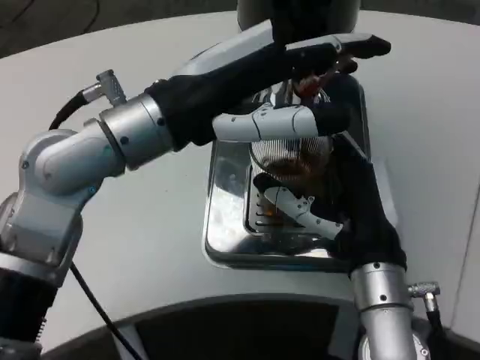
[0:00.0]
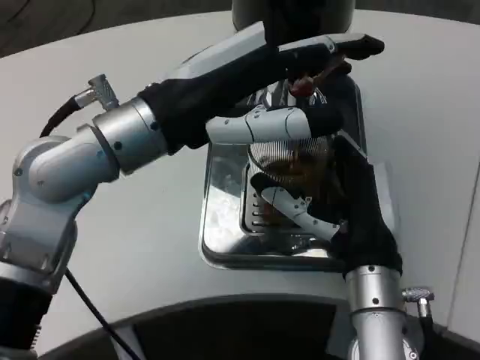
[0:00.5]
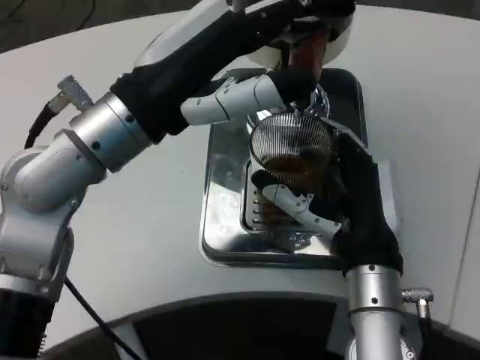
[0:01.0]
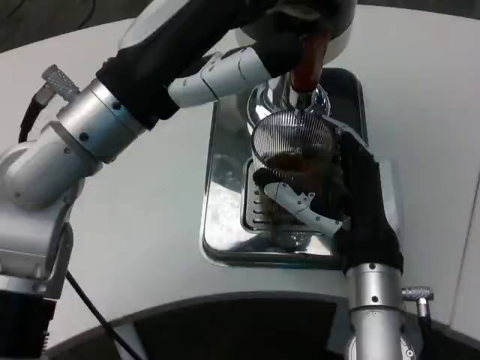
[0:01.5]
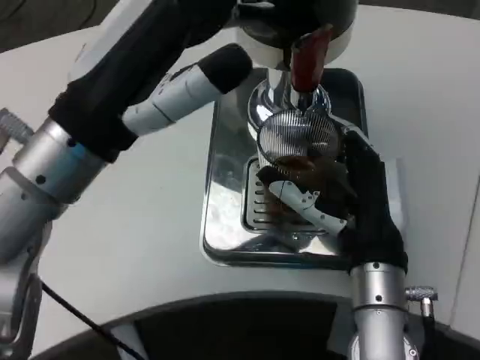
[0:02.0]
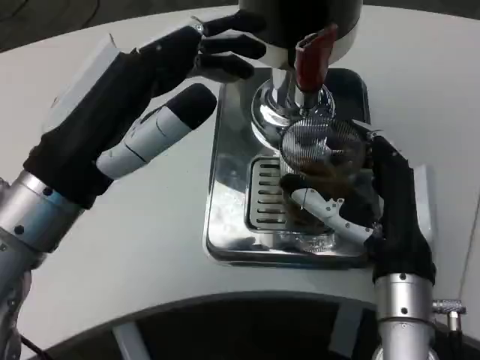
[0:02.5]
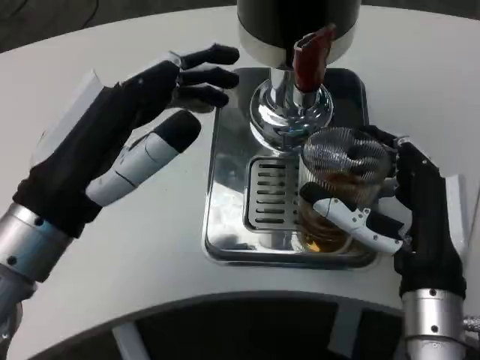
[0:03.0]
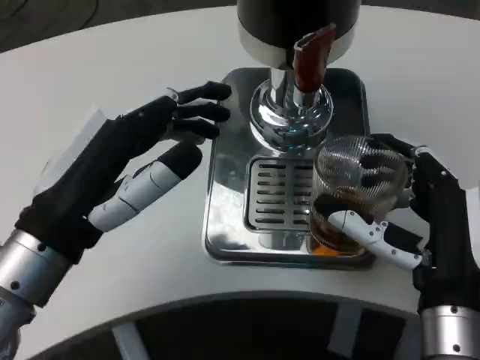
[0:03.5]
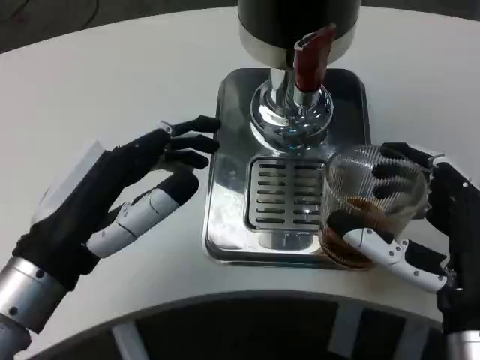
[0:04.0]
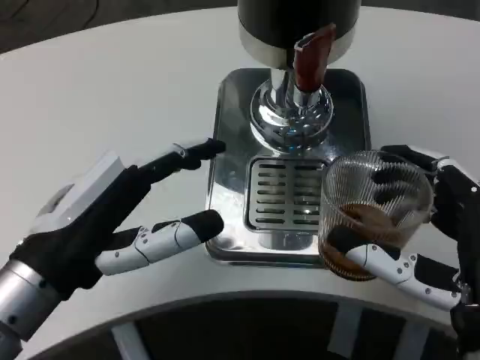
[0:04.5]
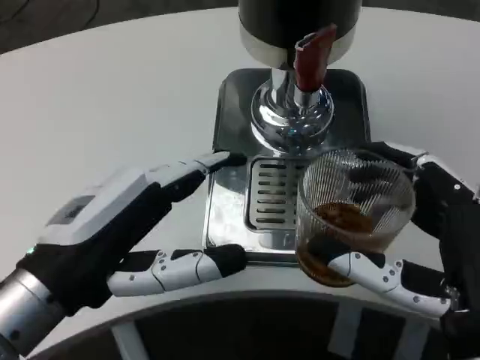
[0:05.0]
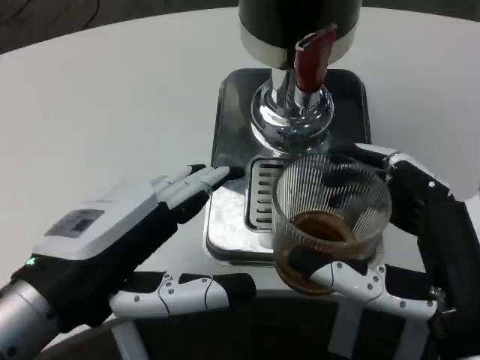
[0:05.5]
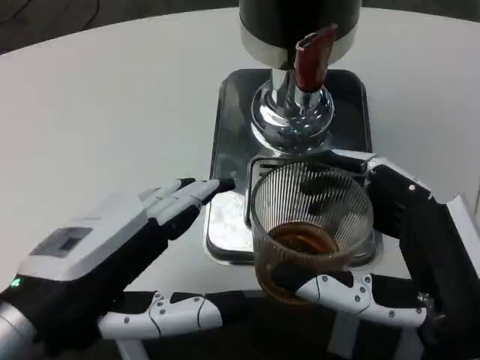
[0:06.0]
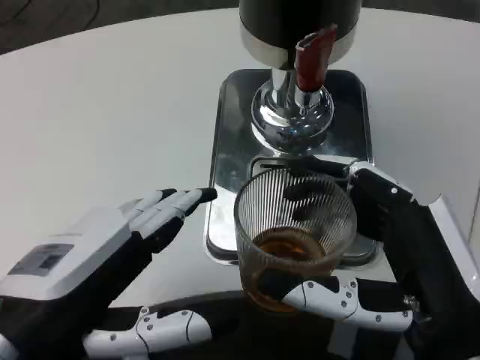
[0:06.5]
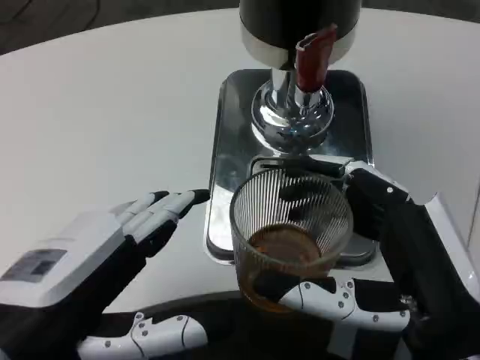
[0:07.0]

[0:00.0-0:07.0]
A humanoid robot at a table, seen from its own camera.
Task of the whole recording: Grasp the cup under the faucet to collect the drink, then remove the cup.
0:00.0 to 0:02.0: The left hand changes place by some 5 cm.
0:02.0 to 0:03.5: The left hand goes roughly 5 cm downward; the right hand moves approximately 5 cm.
0:03.5 to 0:05.0: The right hand goes approximately 5 cm backward.
0:05.0 to 0:07.0: The left hand heads backward, covering roughly 5 cm.

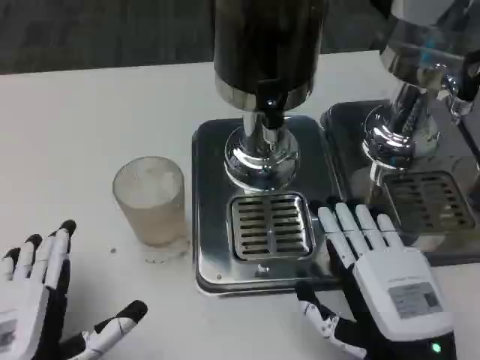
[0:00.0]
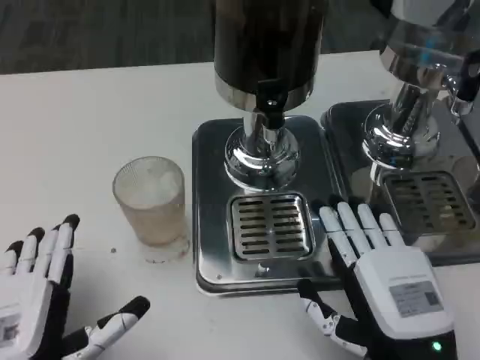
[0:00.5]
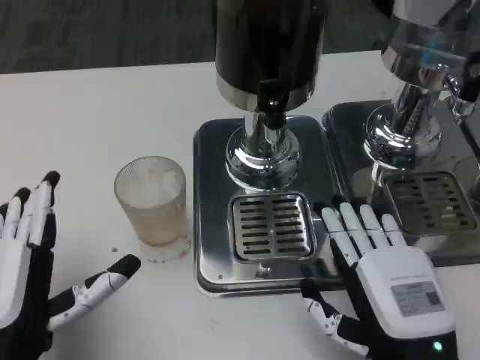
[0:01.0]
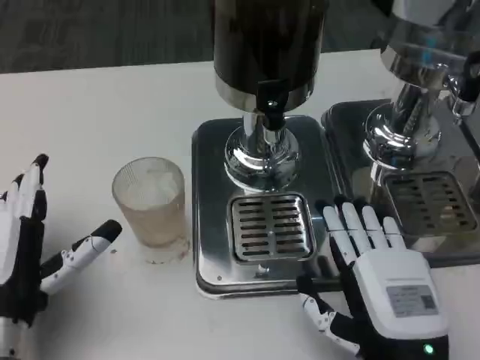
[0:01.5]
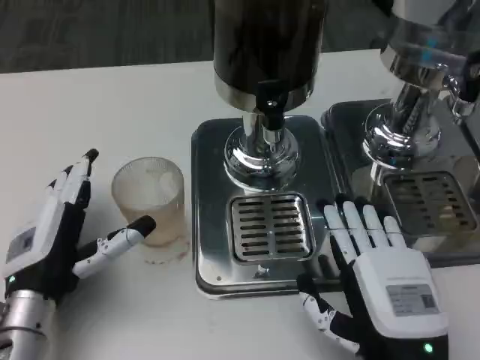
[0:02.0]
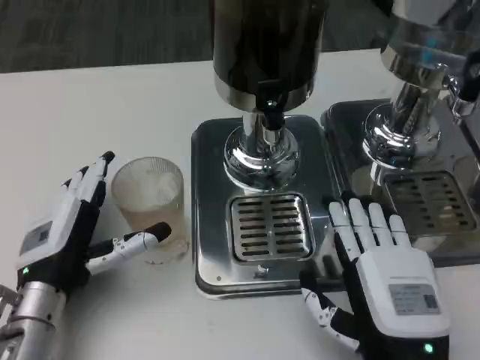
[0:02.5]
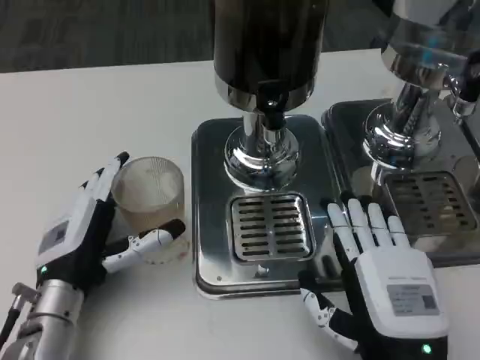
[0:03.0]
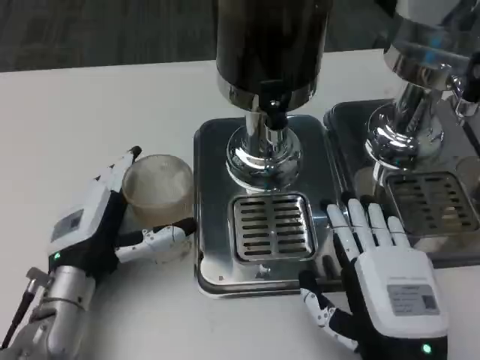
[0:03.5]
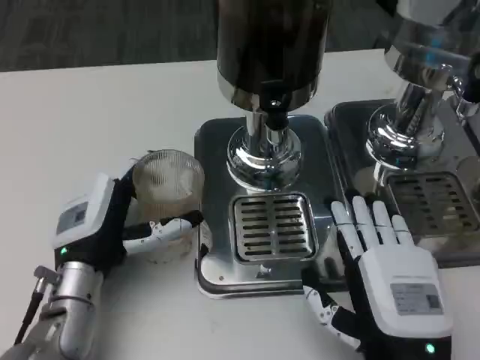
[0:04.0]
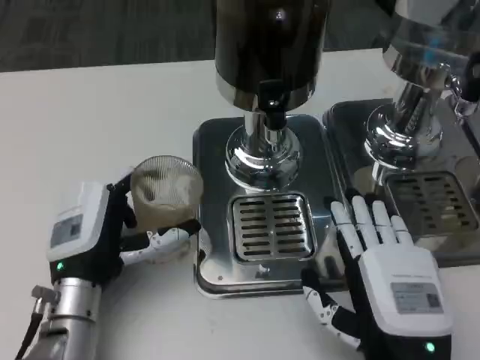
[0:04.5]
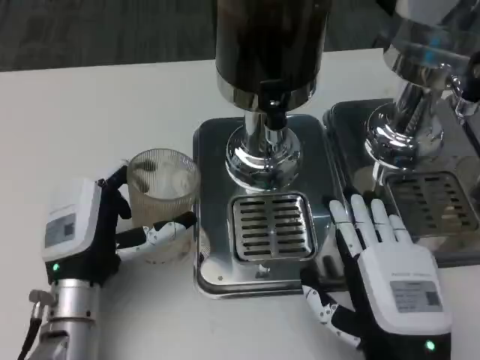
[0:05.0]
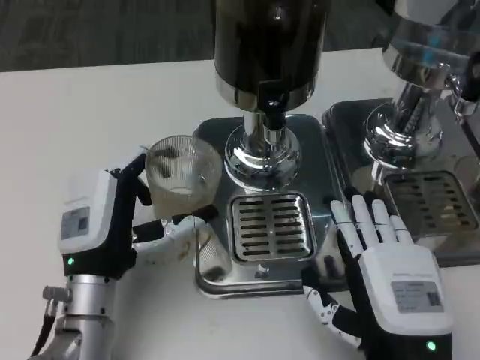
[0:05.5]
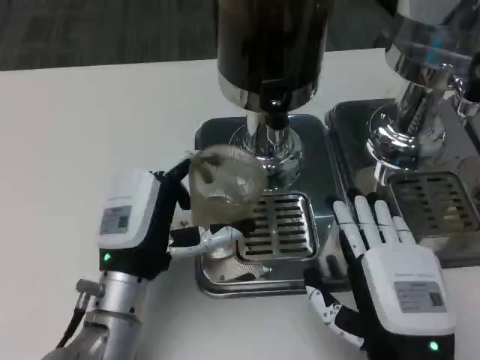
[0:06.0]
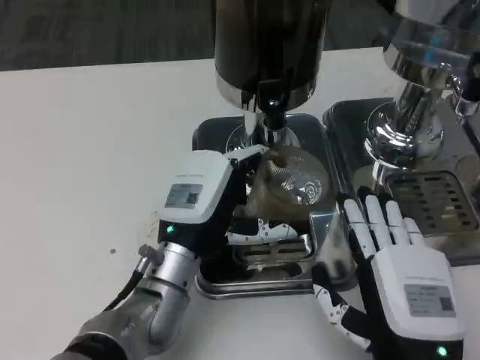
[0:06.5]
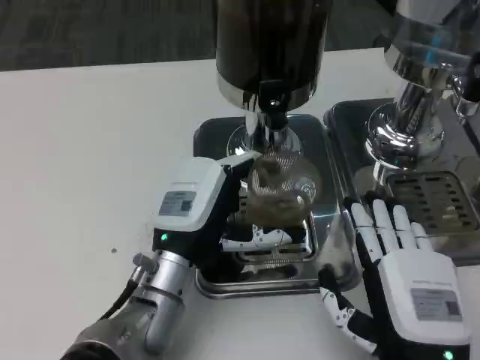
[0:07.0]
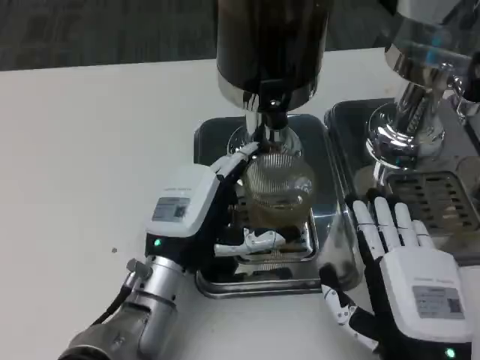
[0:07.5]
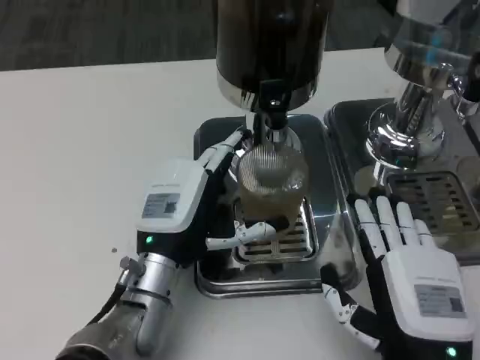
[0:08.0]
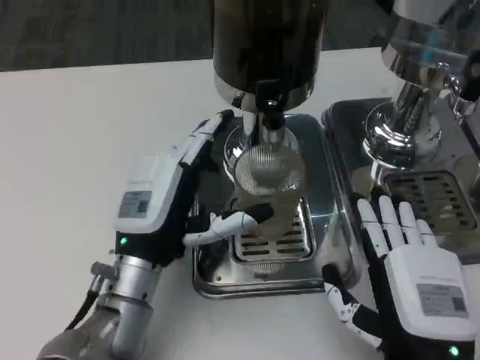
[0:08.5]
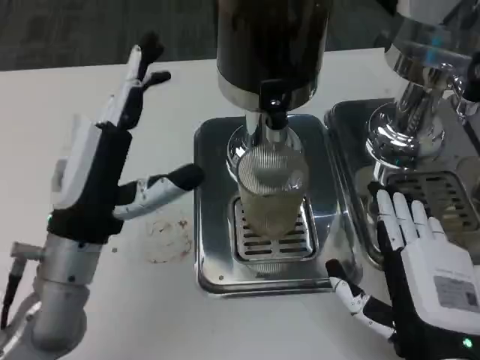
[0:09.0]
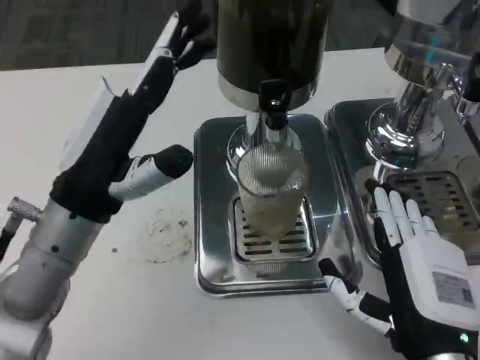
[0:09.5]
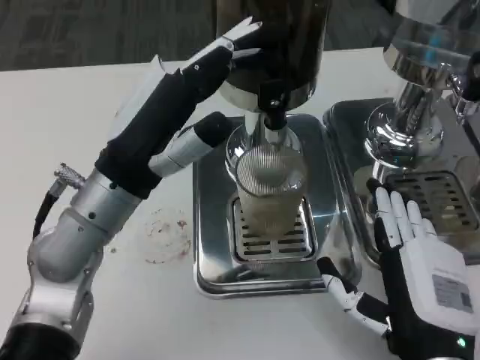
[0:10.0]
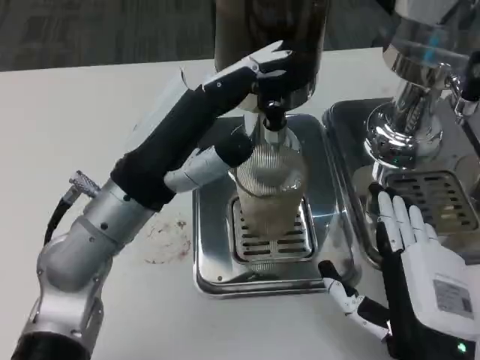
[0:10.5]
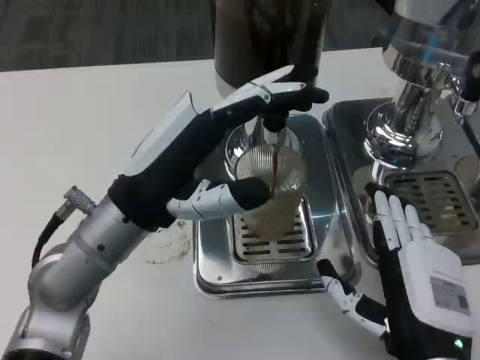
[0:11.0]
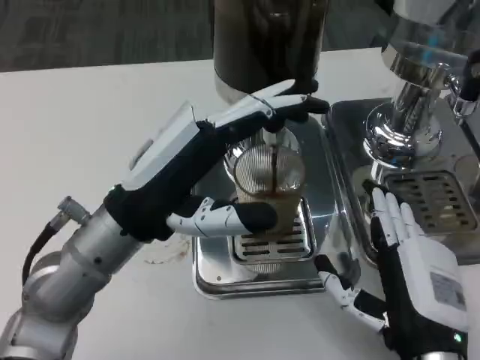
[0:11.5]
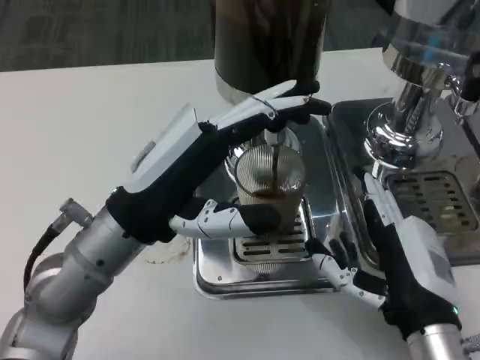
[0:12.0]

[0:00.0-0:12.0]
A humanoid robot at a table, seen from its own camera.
Task of the whole recording: Grasp the cup under the faucet to collect the drink, then remove the cup.
0:00.0 to 0:02.0: The left hand shifts some 10 cm forward.
0:02.0 to 0:04.0: The left hand changes place by about 5 cm.
0:08.0 to 0:10.0: The left hand shifts roughly 10 cm upward.

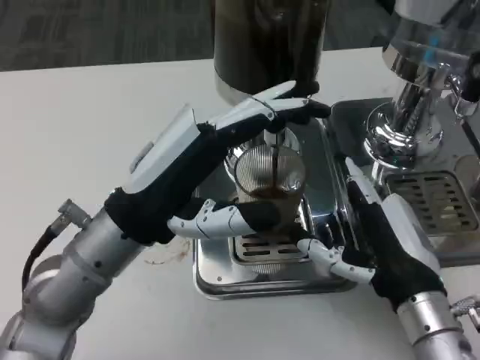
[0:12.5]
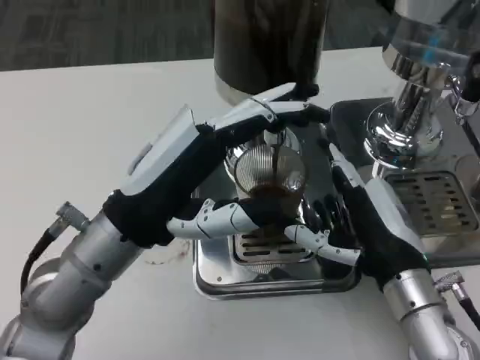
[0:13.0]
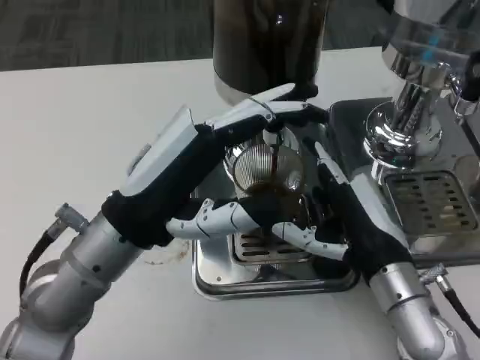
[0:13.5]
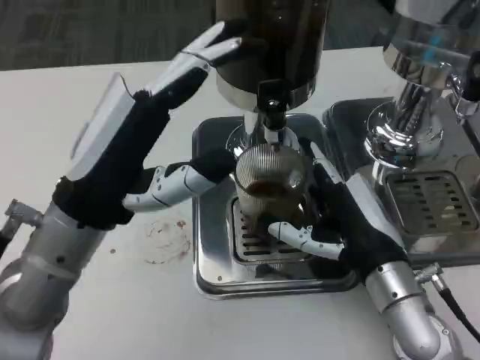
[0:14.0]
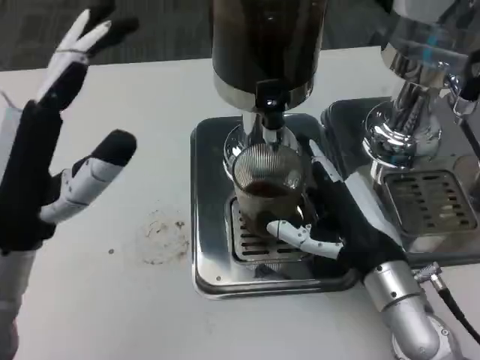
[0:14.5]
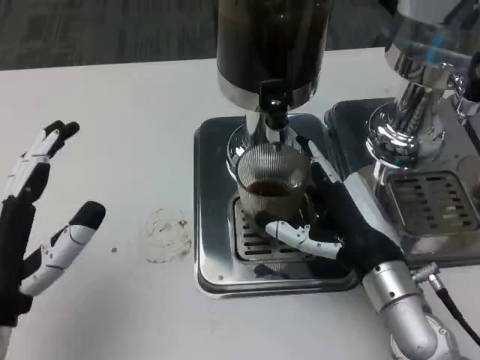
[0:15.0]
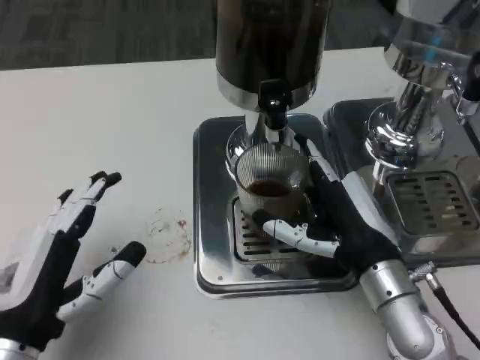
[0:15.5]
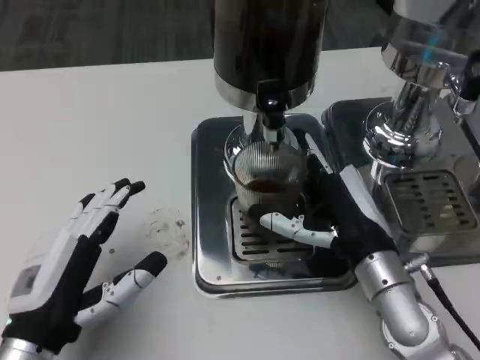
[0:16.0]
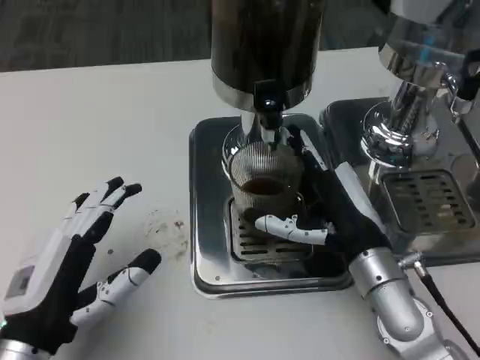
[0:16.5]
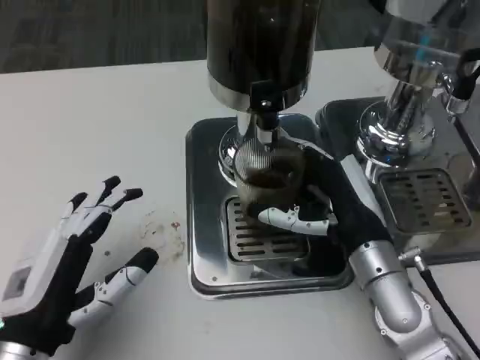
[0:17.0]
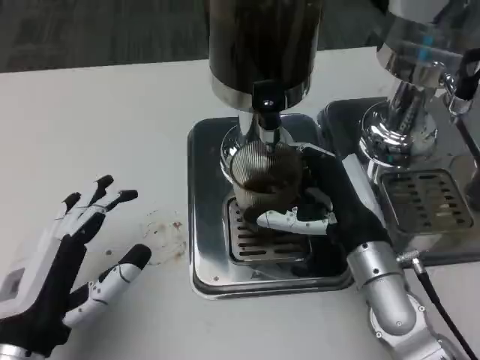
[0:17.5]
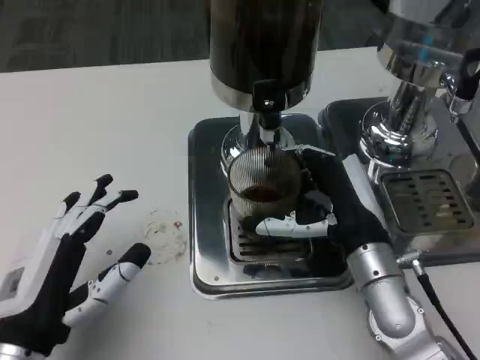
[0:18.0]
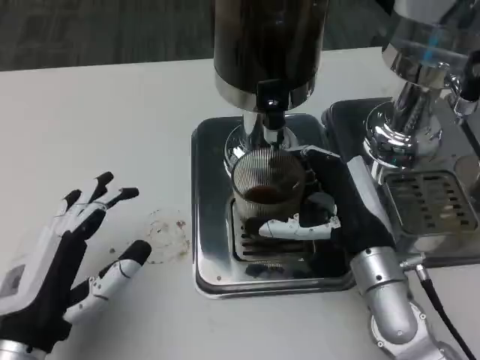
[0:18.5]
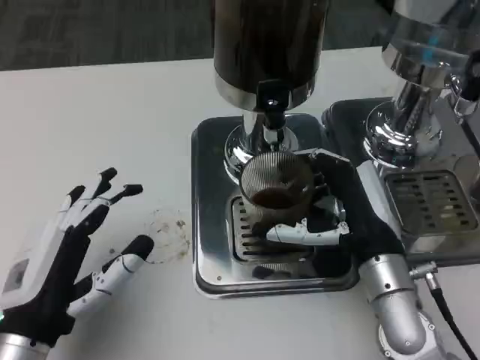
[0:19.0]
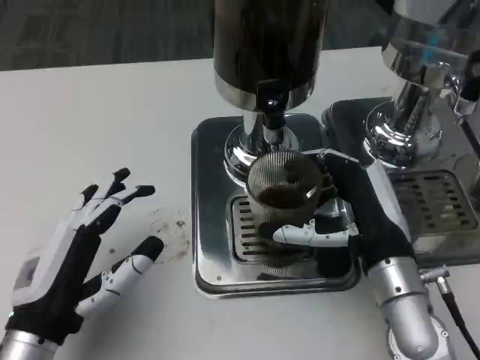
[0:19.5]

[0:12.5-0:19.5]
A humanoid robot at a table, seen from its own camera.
Task of the whole recording: Grasp the cup under the faucet to collect the drink, then remove the cup.
0:12.5 to 0:14.5: The left hand shifts about 5 cm to the left.
0:14.5 to 0:16.0: The left hand travels downward and backward by roughly 10 cm.
